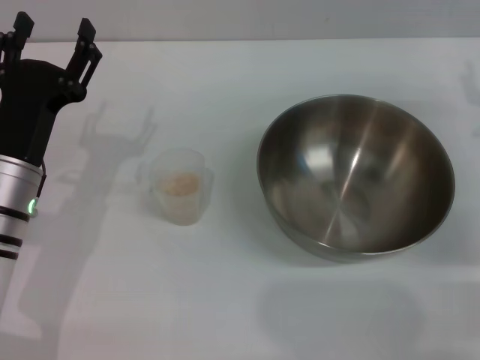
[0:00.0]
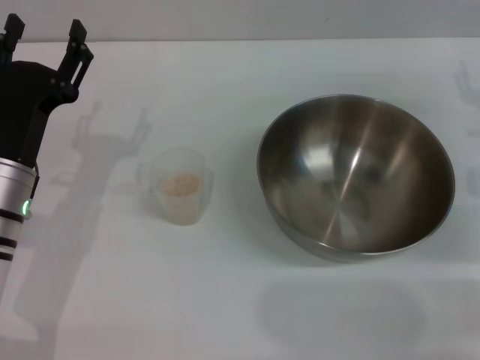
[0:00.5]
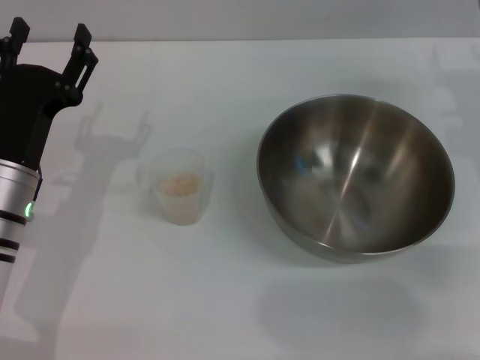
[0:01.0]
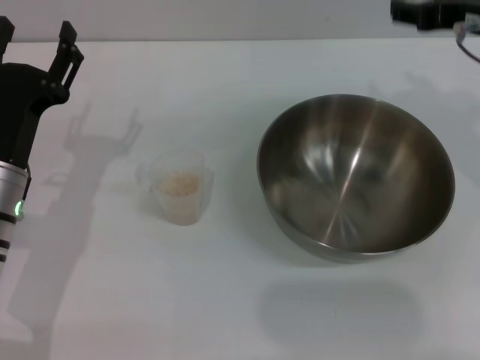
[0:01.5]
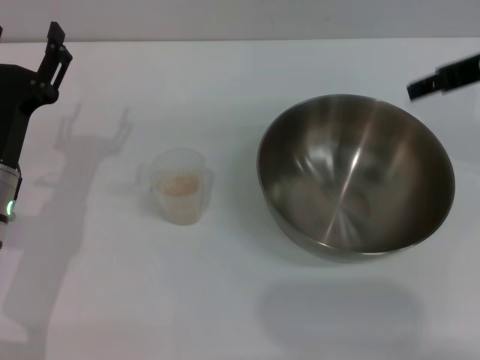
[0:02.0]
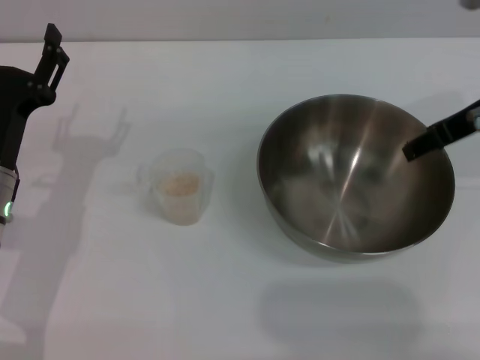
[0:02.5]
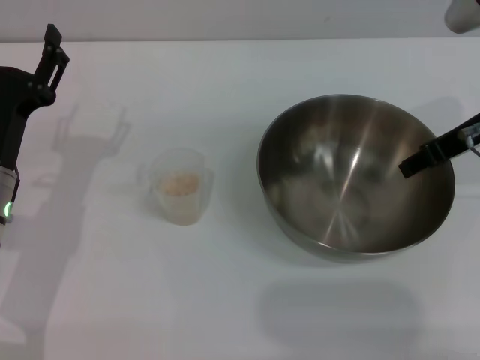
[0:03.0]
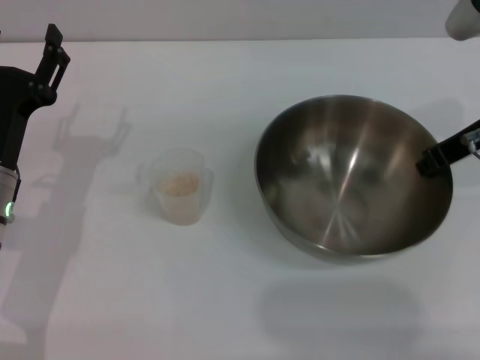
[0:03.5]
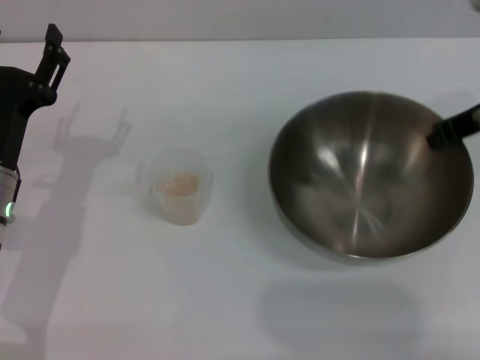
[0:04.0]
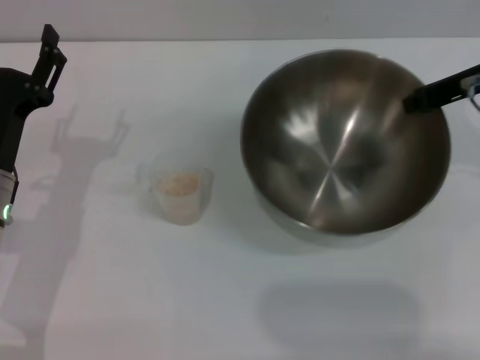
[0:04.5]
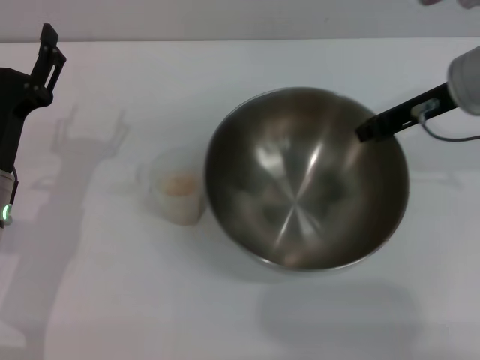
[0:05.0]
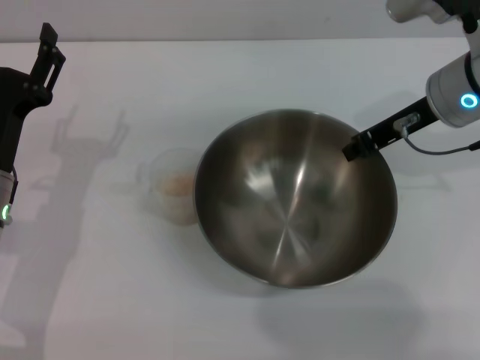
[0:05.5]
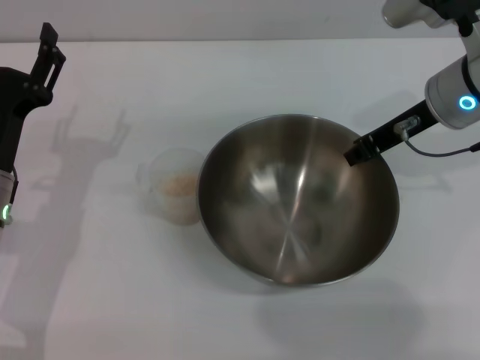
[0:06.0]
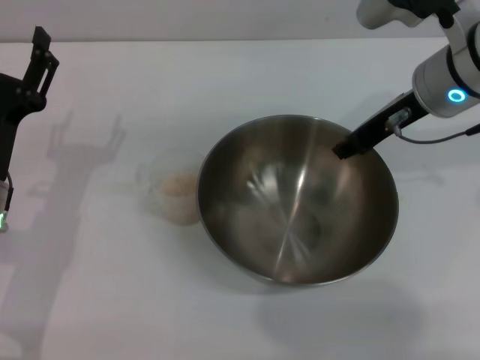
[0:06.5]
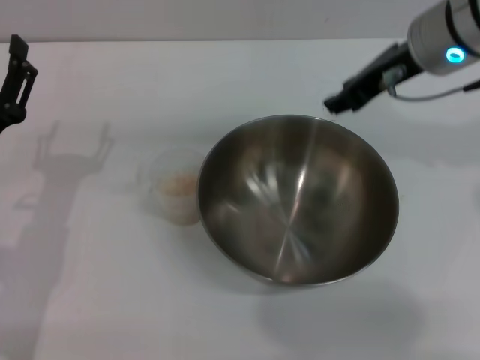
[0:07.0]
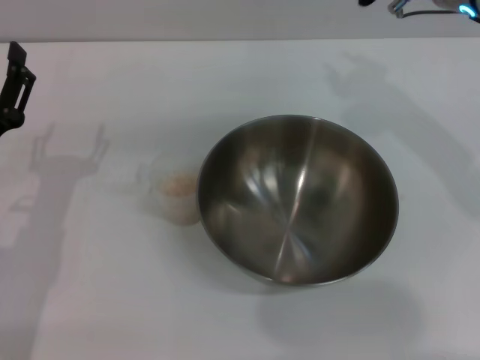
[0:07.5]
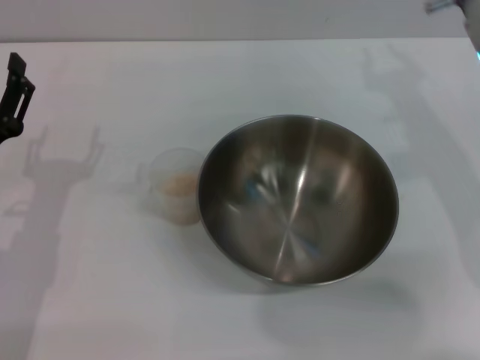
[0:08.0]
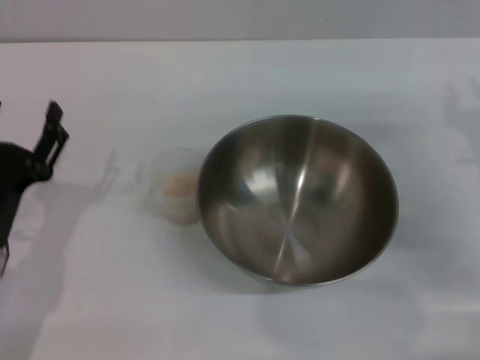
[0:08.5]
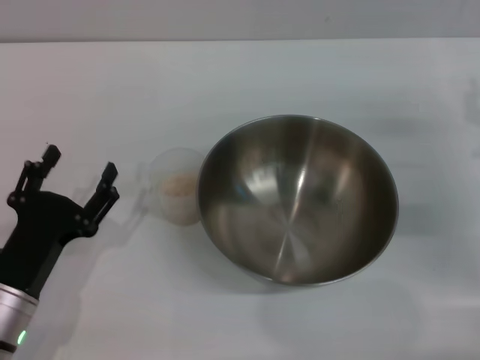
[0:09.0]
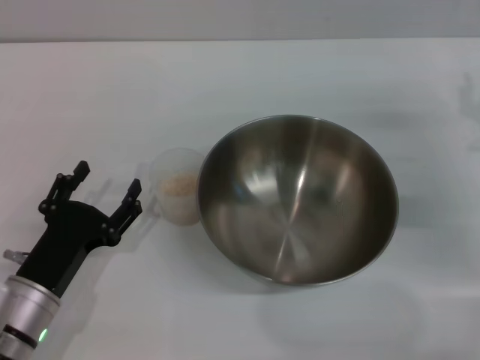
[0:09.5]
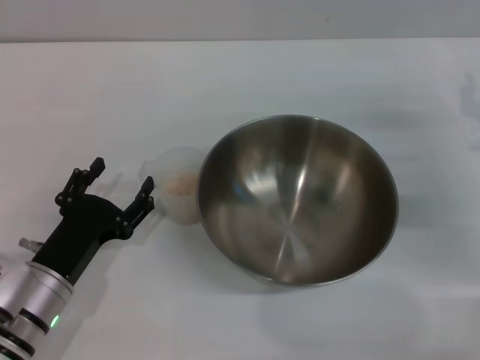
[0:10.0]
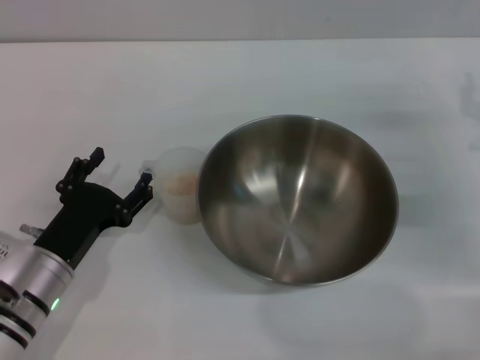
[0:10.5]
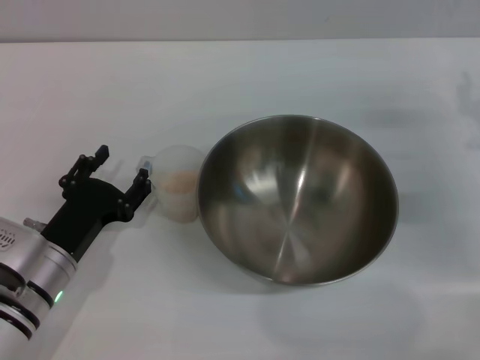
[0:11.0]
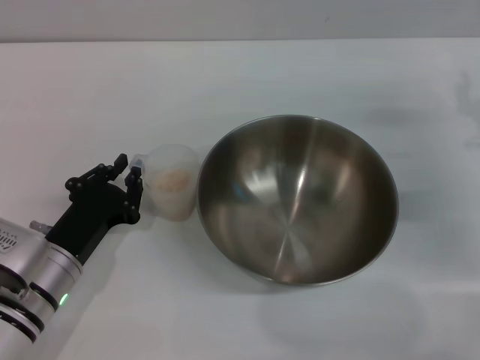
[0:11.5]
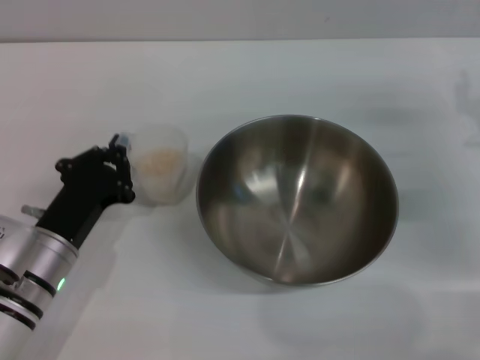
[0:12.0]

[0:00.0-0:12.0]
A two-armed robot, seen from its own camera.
Task of the whole recording: Place the bowl in the middle of the table with one hand and pour the rice from the grain cup into it with the other hand.
Step, 0:00.0 to 0:05.0: Pick up the bowl with the right gripper.
Step, 0:05.5 to 0:07.5: Place the bowl in the center of view with the right gripper.
0:00.0 to 0:02.0: The right gripper moves upward and to the left, some 15 cm.
0:02.0 to 0:04.0: The right gripper closes.
0:04.0 to 0:06.0: The right gripper heads to the left, covering about 5 cm.
0:06.0 to 0:08.0: The right gripper opens up.
0:08.0 to 0:10.0: The left gripper heads downward, covering approximately 5 cm, while the right gripper heads to the right and downward, covering roughly 15 cm.
0:10.0 to 0:12.0: The left gripper closes its fingers.

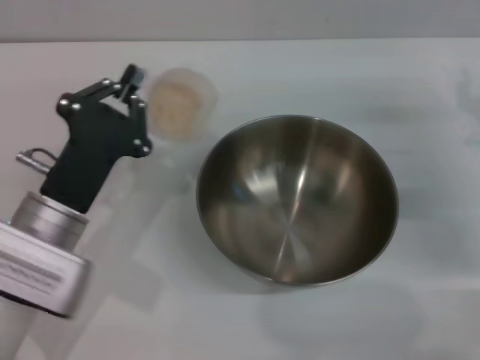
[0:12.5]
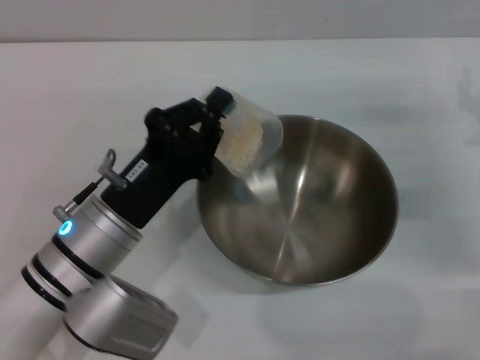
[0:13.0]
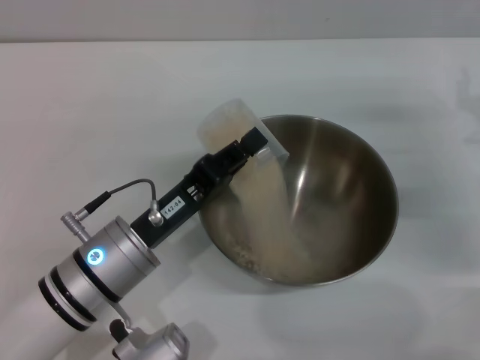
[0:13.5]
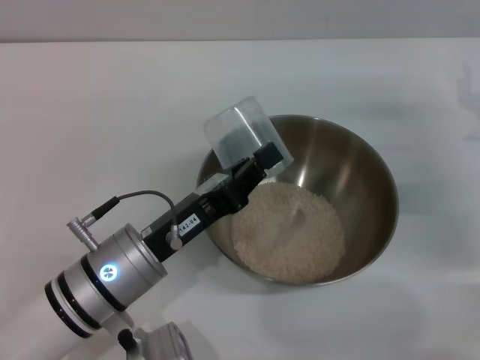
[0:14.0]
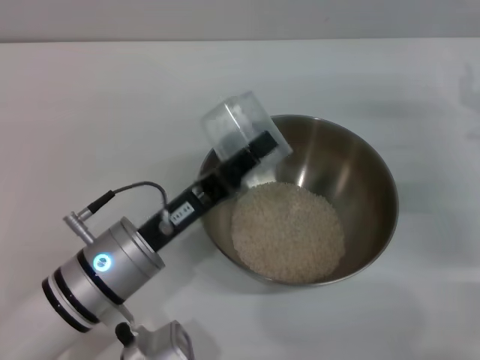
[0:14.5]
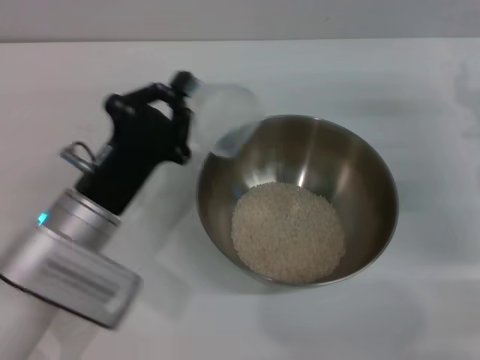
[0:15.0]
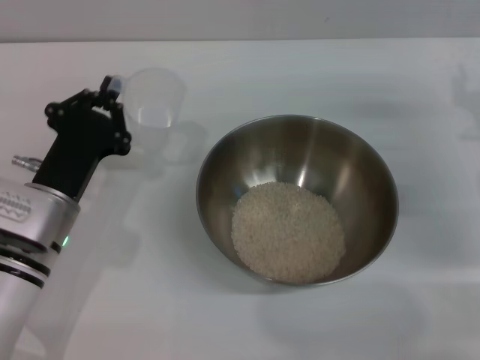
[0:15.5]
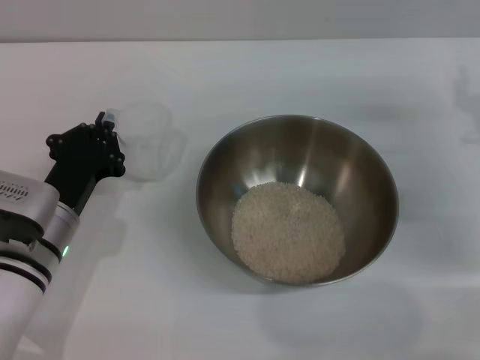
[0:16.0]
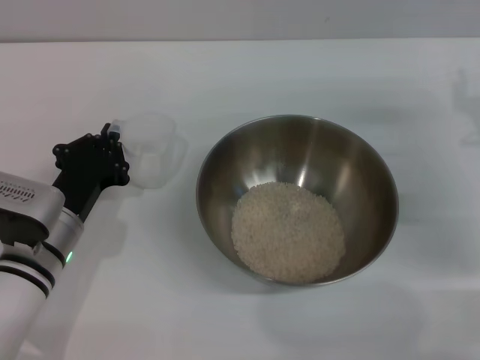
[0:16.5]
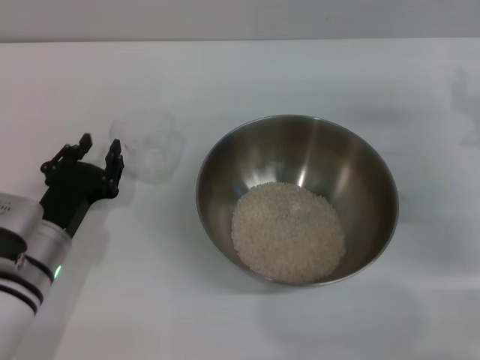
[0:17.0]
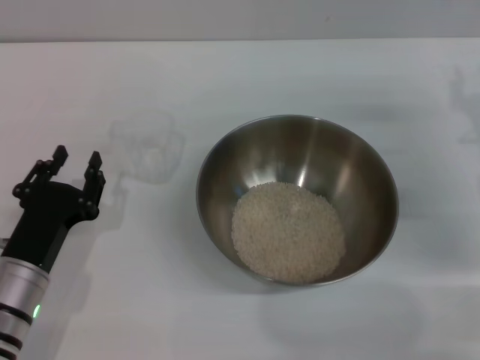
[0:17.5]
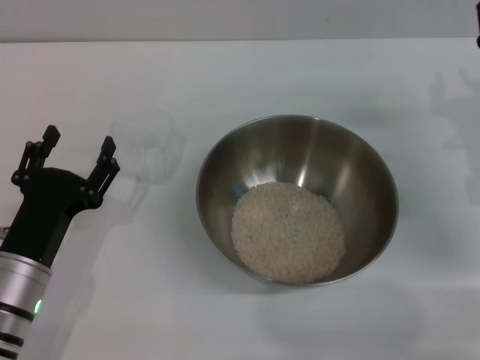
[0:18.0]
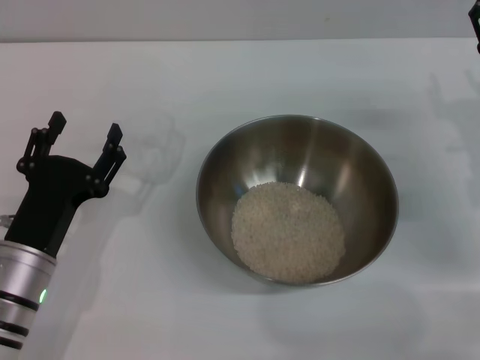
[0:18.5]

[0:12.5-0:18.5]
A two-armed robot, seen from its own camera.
Task of the whole recording: Place the bowl in the middle of the table with one hand and pour the rice from the grain cup into it with the other hand.
Step, 0:12.5 to 0:15.0: Pour the rice from the cup into the bowl with the left gripper.
Step, 0:15.5 to 0:17.5: Place the cup on the table with the left gripper.
0:12.5 to 0:14.5: The left gripper is displaced to the right by approximately 5 cm.
0:14.5 to 0:16.5: The left gripper heads to the left, covering approximately 5 cm.
0:16.5 to 0:18.5: The left gripper travels backward by some 5 cm, and opens its fingers.
